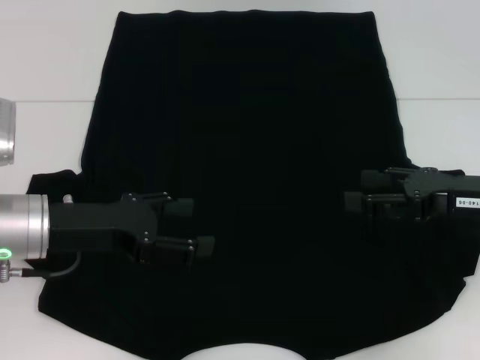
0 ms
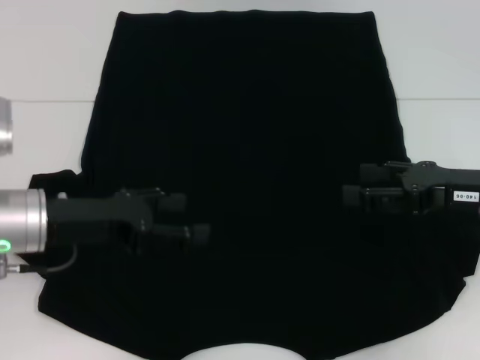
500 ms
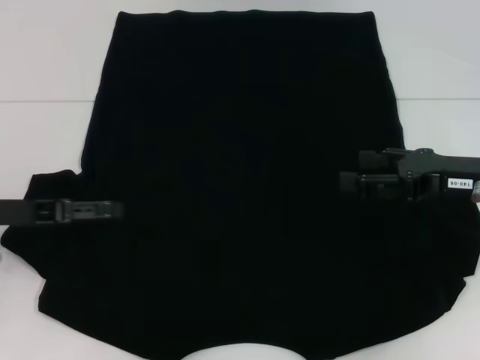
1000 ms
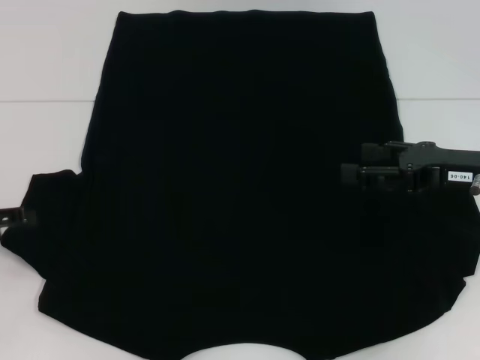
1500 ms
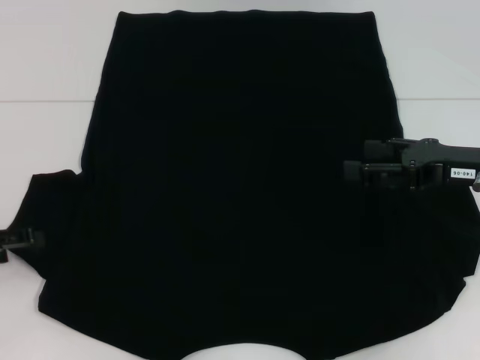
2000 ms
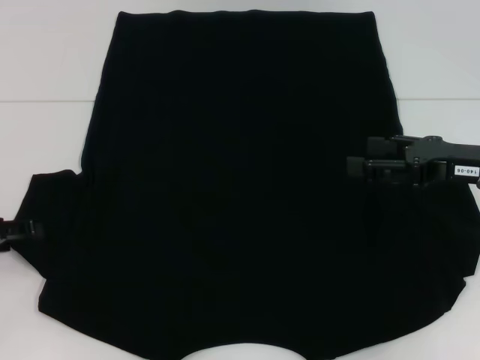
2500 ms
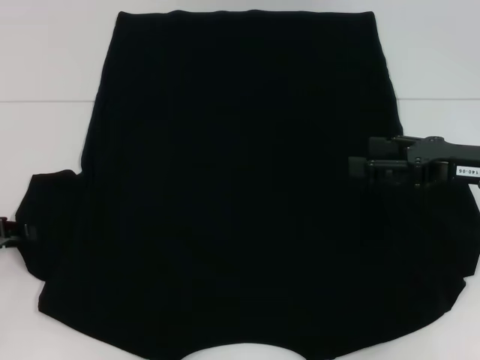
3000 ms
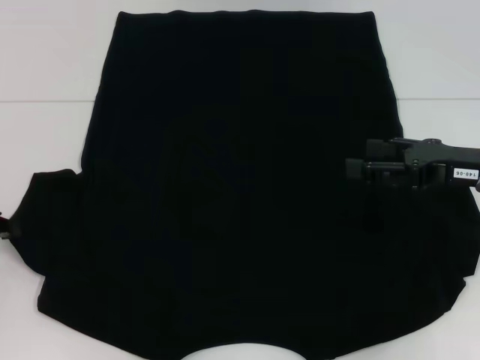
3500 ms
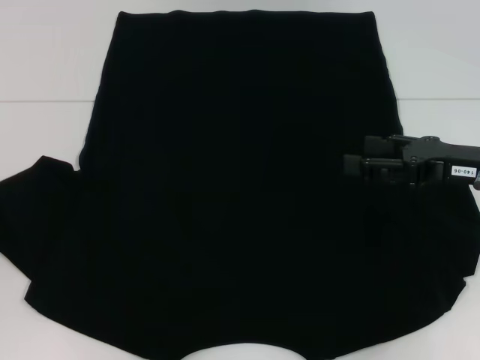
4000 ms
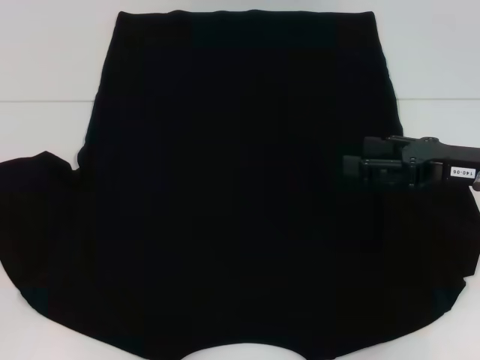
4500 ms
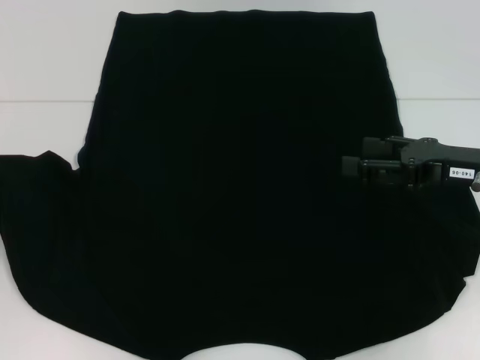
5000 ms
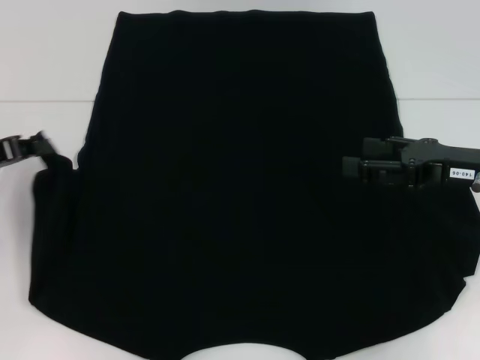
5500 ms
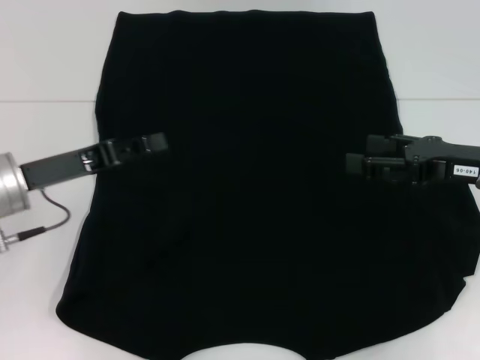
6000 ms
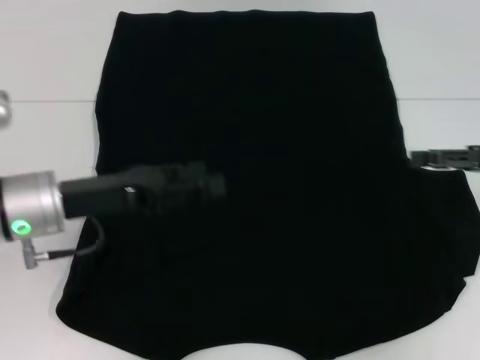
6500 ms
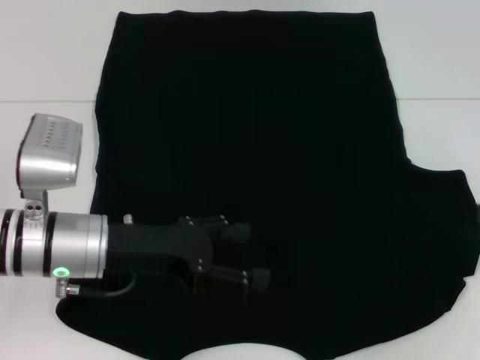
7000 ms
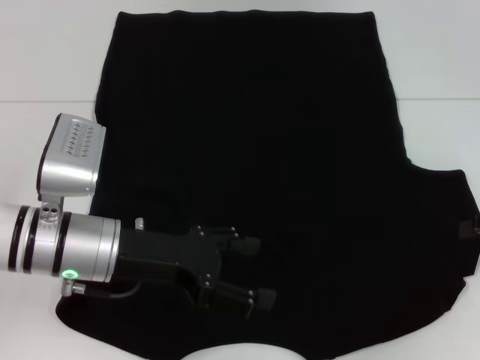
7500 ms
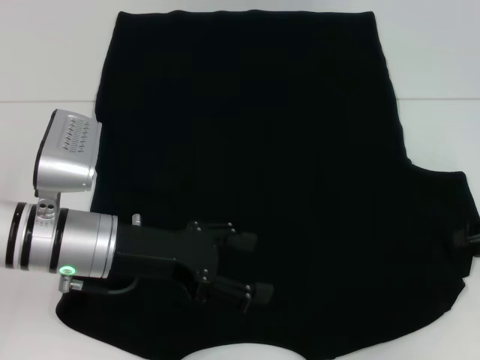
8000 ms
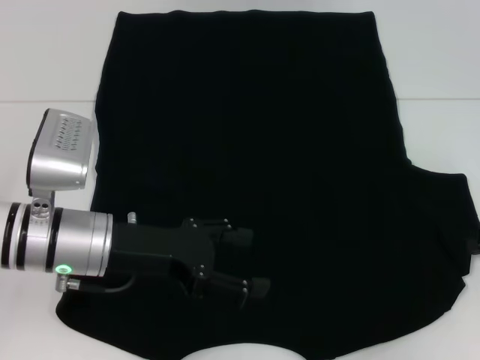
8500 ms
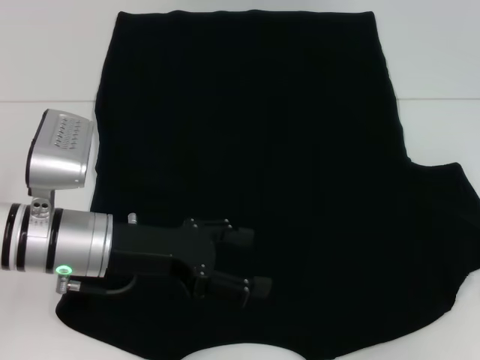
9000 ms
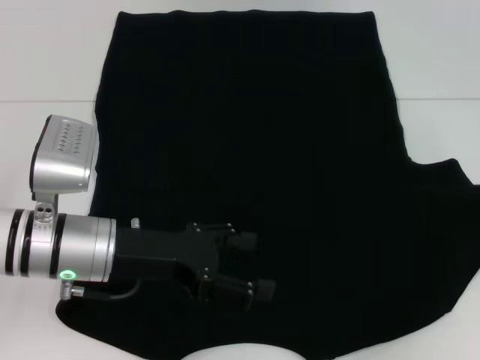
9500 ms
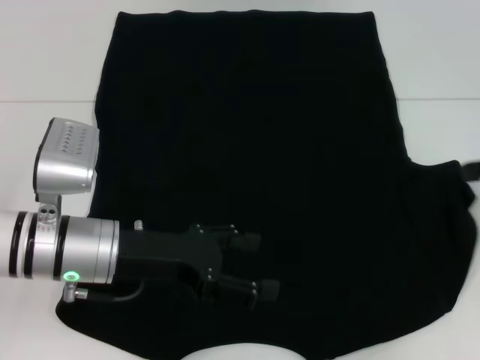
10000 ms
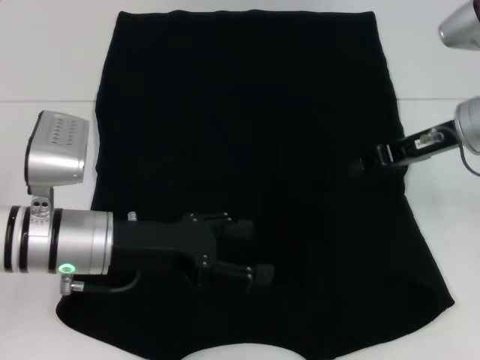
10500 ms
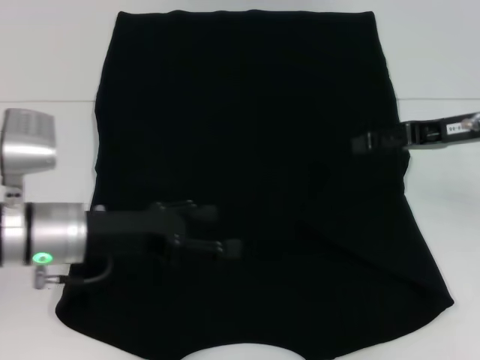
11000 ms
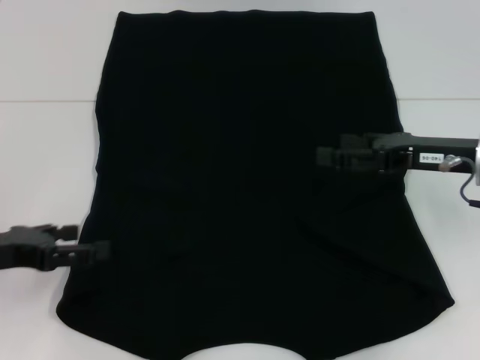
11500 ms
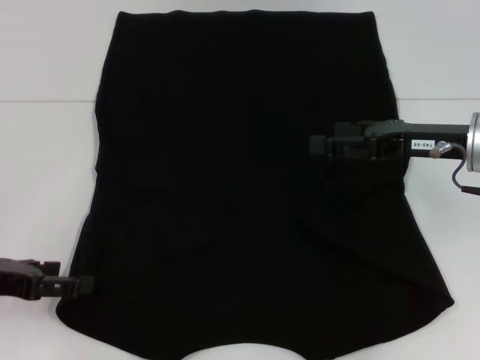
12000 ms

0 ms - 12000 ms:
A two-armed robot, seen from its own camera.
Step, 0 ms - 6000 ms: Fold the bottom left sleeve with your left hand.
Step, 6500 ms - 10500 ms: Fold the bottom right sleeve with your right hand.
0 ms - 2000 ms: The left gripper shifts some 15 cm to the left.
2000 ms - 4000 ms: The left gripper closes.
4000 ms - 6000 ms: The left gripper travels to the right by approximately 10 cm.
6000 ms - 8000 ms: The two grippers go some 10 cm to the right. The left gripper opens.
8000 ms - 10000 ms: The right gripper shifts by approximately 5 cm, and closes up.
10000 ms - 12000 ms: The two grippers go some 15 cm to the left. The right gripper opens.

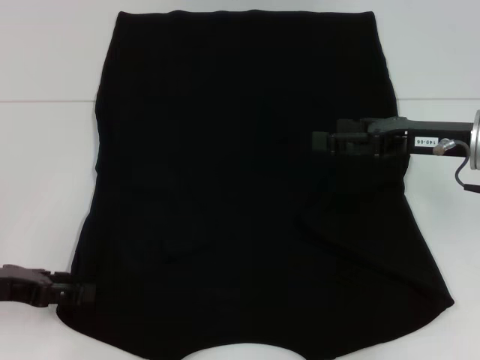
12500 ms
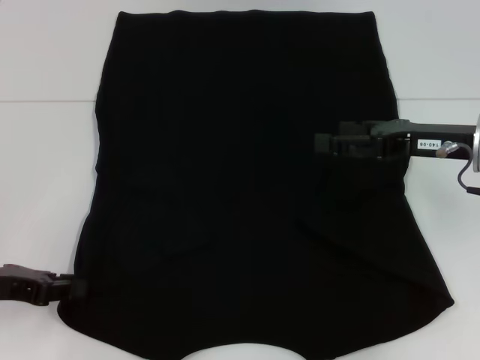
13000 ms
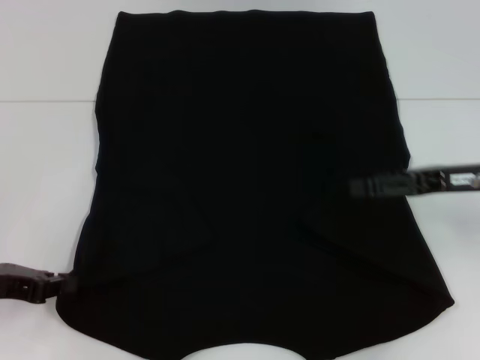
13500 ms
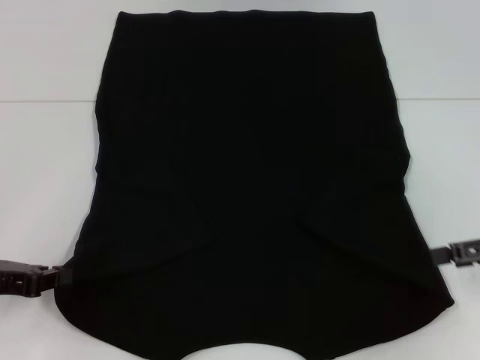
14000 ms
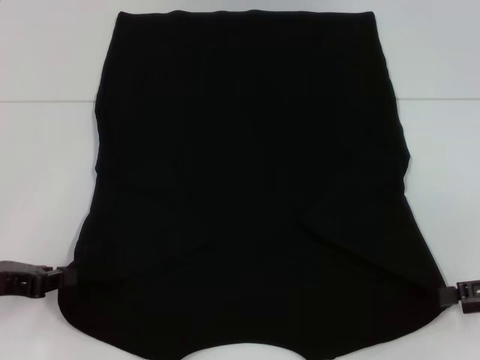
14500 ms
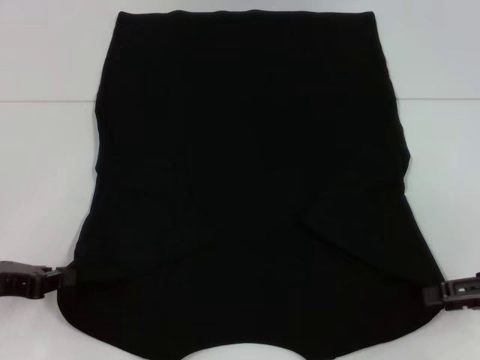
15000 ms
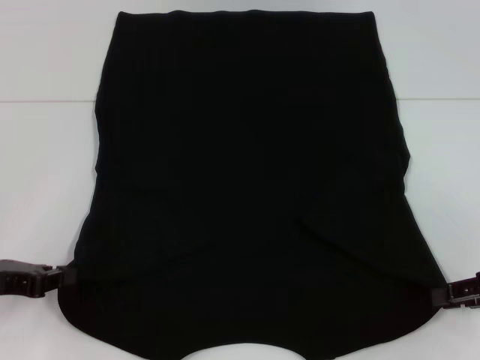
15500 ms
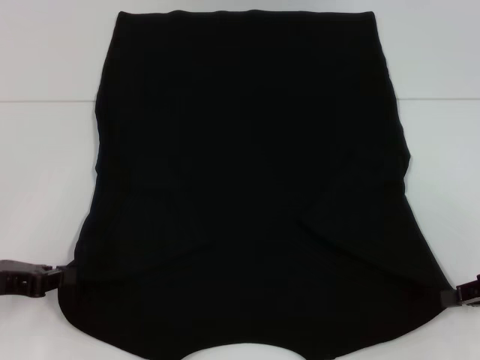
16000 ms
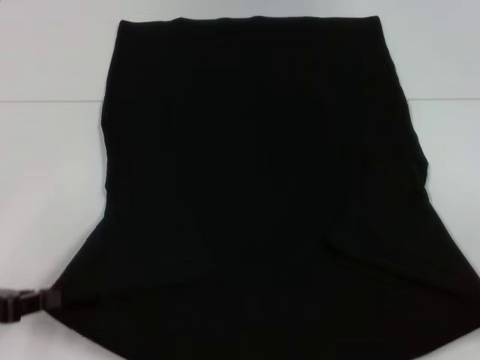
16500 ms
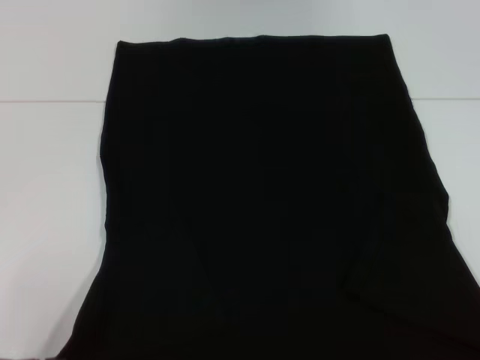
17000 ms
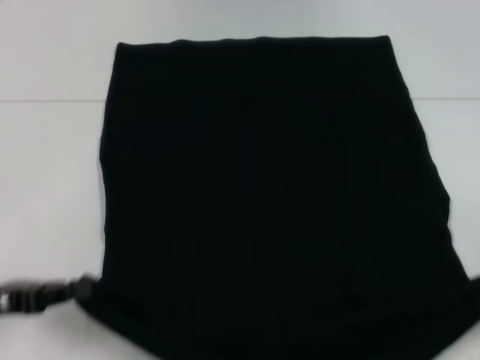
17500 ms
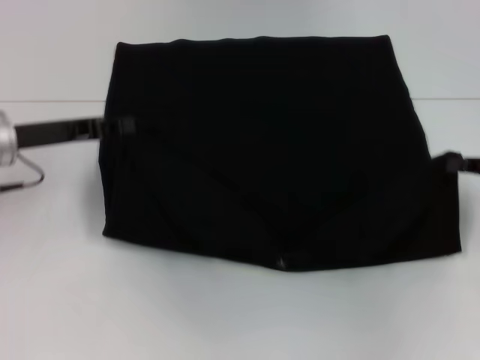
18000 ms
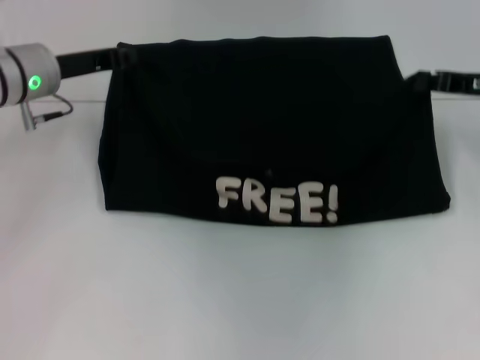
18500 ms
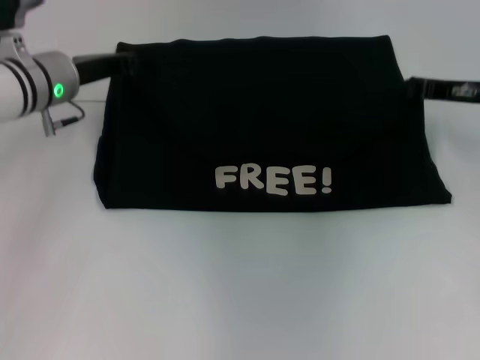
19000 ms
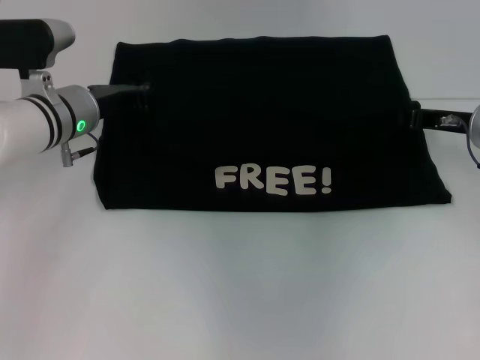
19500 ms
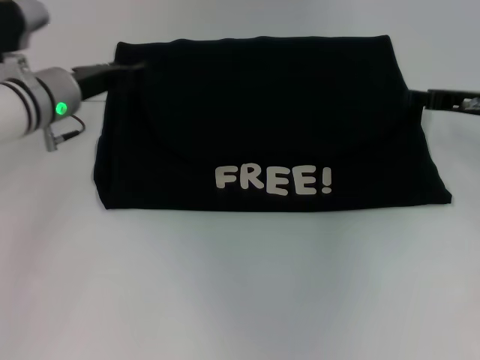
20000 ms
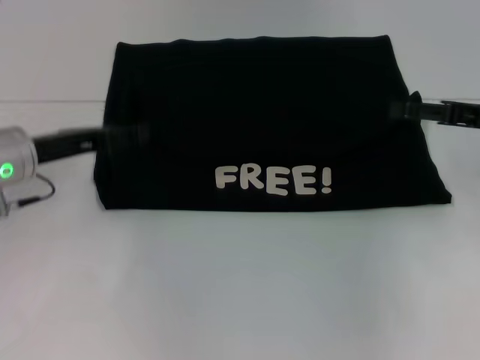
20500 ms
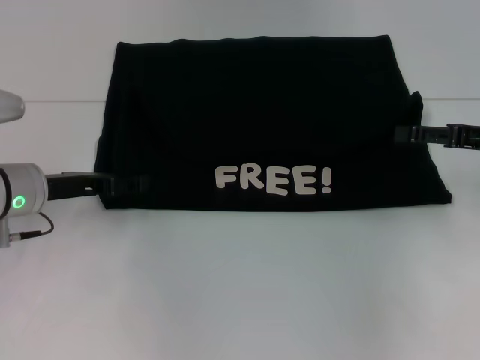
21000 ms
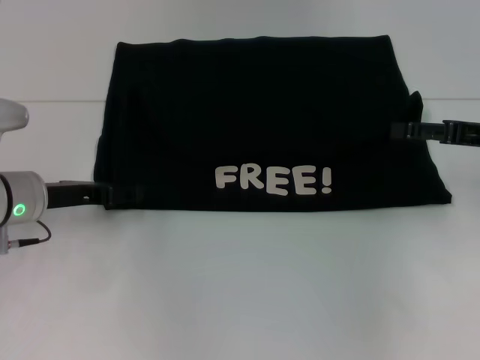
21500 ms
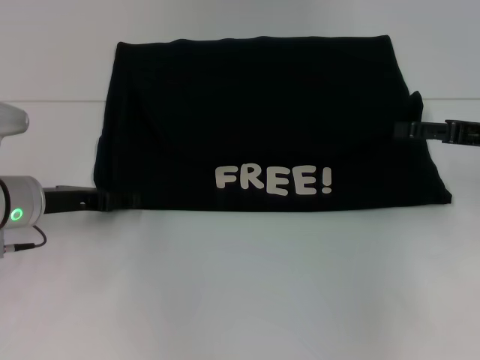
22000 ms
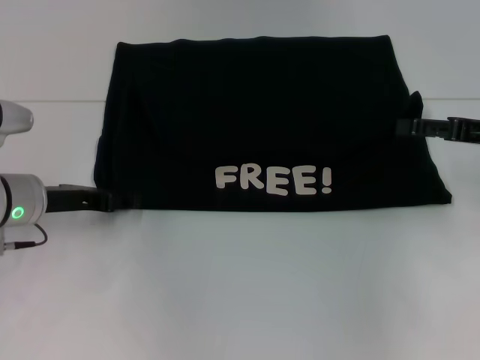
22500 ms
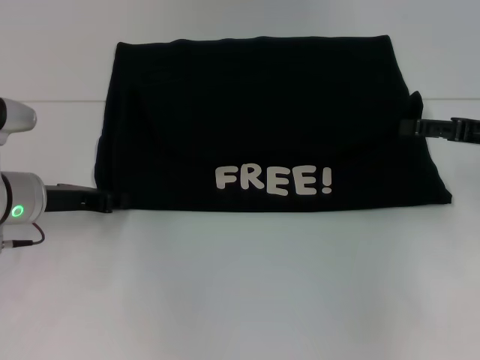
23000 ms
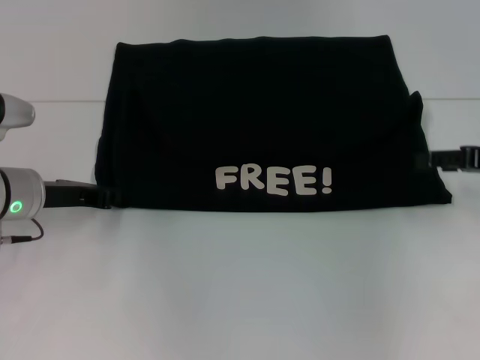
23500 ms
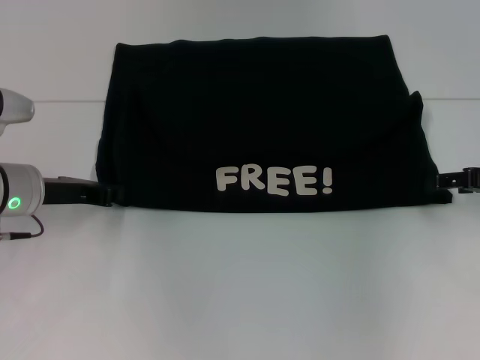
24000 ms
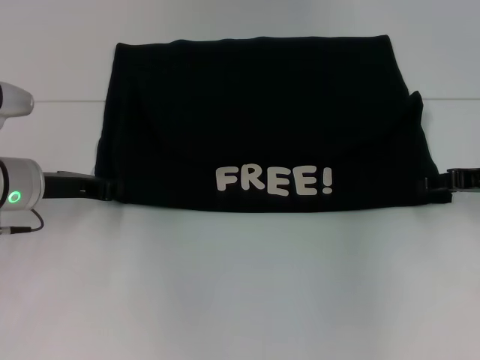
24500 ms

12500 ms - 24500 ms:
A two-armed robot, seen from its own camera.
Step, 14000 ms - 16000 ms: Grab the bottom right corner with your right hand.
Step, 16500 ms - 19500 ms: Fold the clothes with your left hand.
Step, 16500 ms - 19500 ms: Fold the clothes with your right hand.
12500 ms - 14500 ms: The left gripper closes up, while the right gripper goes about 15 cm to the right and backward.
14500 ms - 16500 ms: The right gripper moves about 5 cm, and closes its fingers.
16500 ms - 18500 ms: The right gripper travels forward and to the left by about 20 cm; the left gripper moves forward and to the right, some 25 cm.
18500 ms - 20500 ms: The left gripper is displaced backward and downward by approximately 10 cm, and opens its fingers; the right gripper travels backward by about 5 cm, and opens.
20500 ms - 22500 ms: The grippers stay close to where they were, moving slightly.
22500 ms - 24500 ms: The left gripper closes.

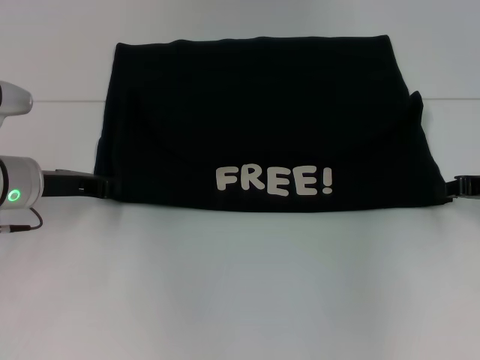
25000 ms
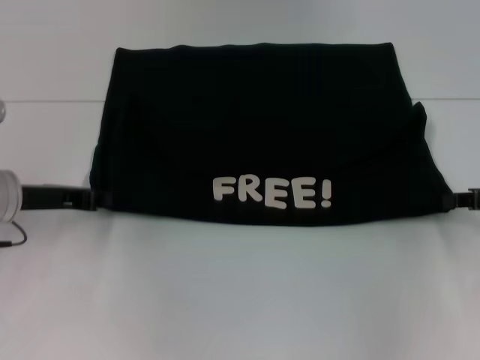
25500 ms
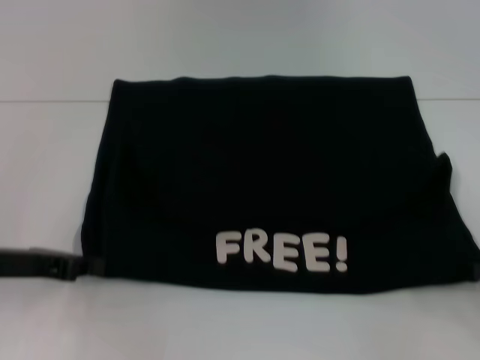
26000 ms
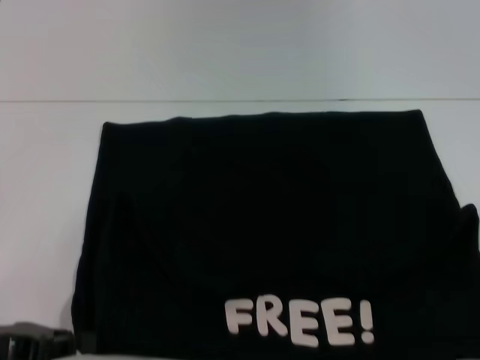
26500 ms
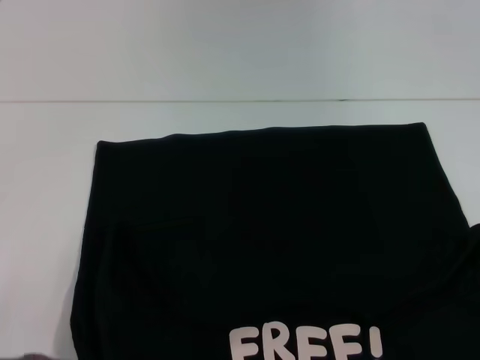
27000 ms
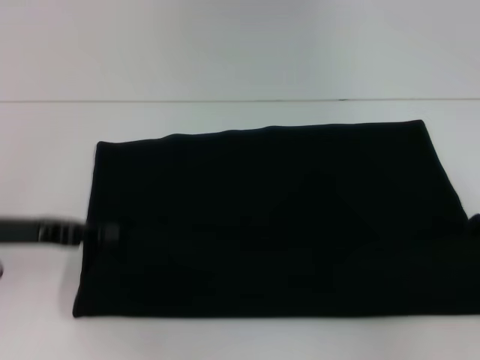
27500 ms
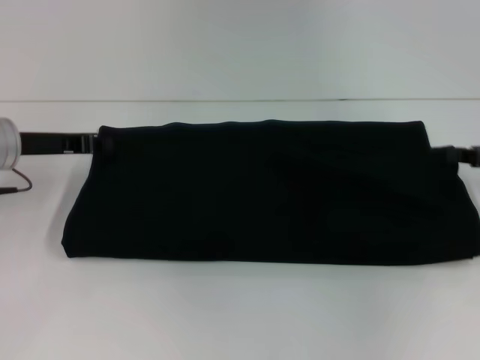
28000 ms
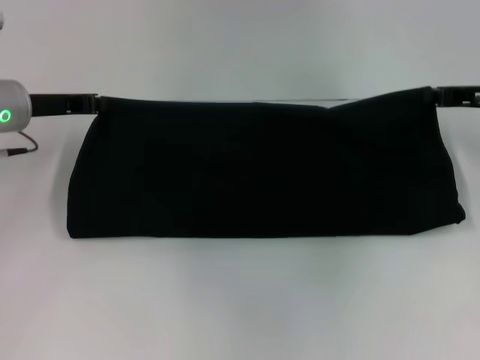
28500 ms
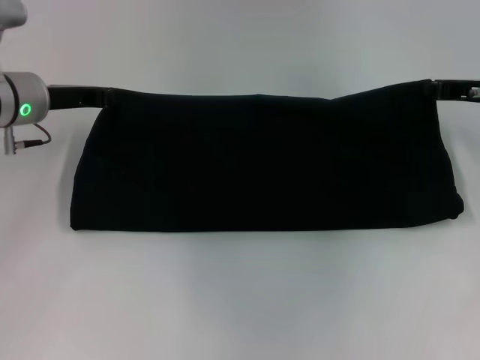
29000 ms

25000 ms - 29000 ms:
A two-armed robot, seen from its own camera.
25000 ms - 27000 ms: The right gripper heads backward and to the right, covering about 25 cm; the left gripper is displaced backward by approximately 20 cm.
27000 ms - 29000 ms: The right gripper moves forward and to the left, about 30 cm; the left gripper heads forward, covering approximately 25 cm.
